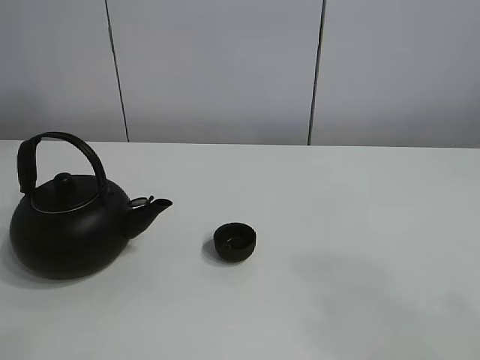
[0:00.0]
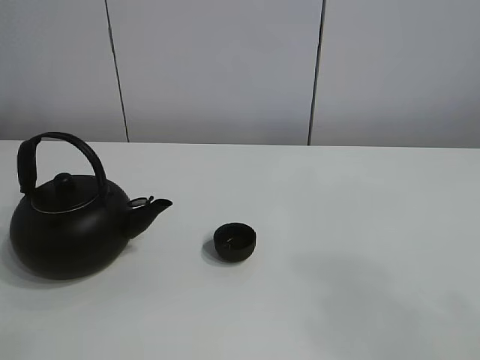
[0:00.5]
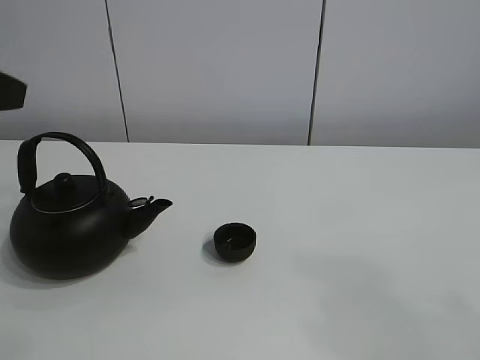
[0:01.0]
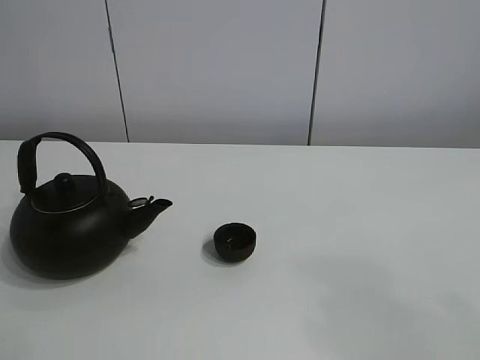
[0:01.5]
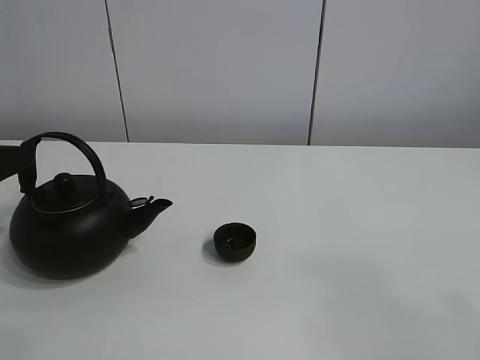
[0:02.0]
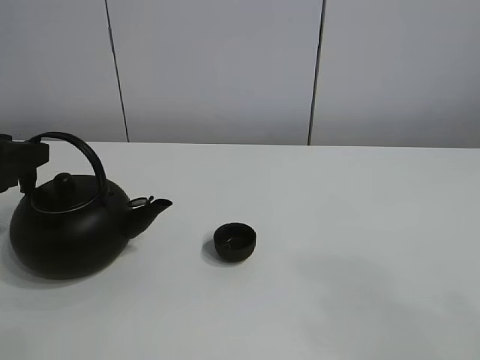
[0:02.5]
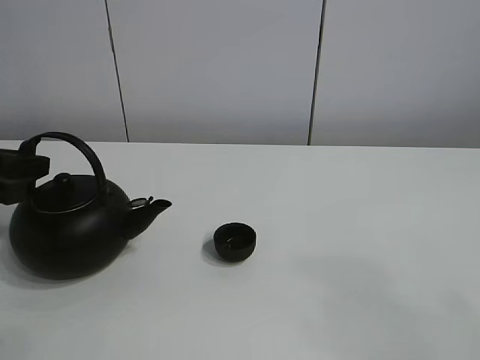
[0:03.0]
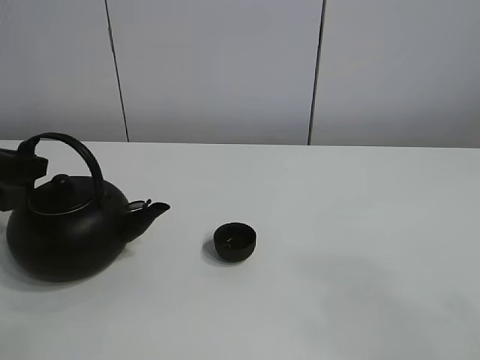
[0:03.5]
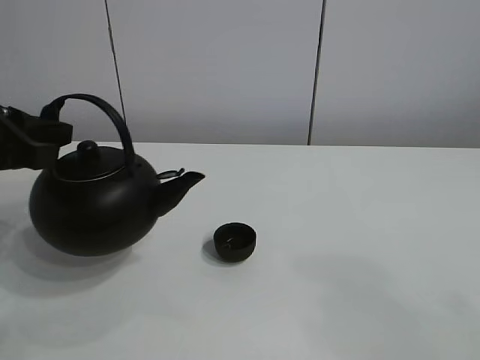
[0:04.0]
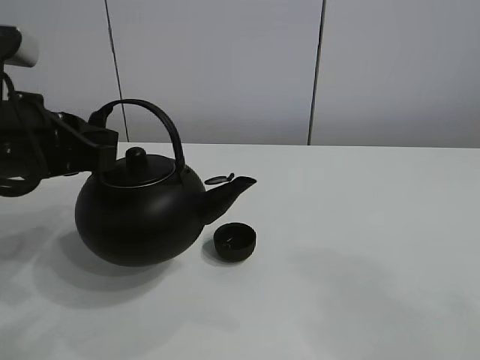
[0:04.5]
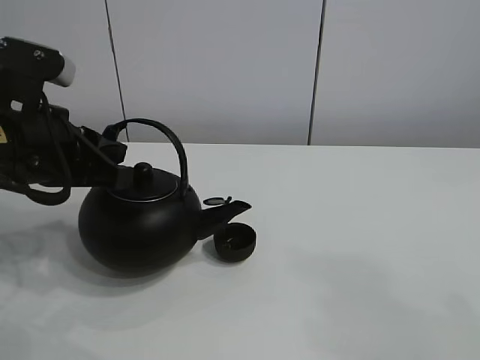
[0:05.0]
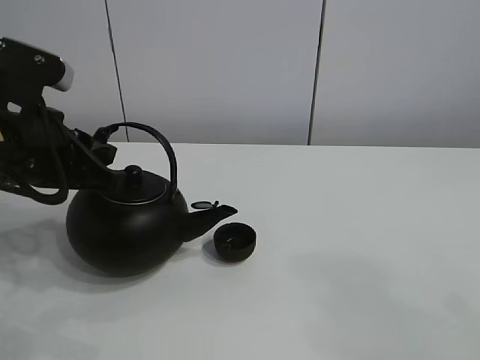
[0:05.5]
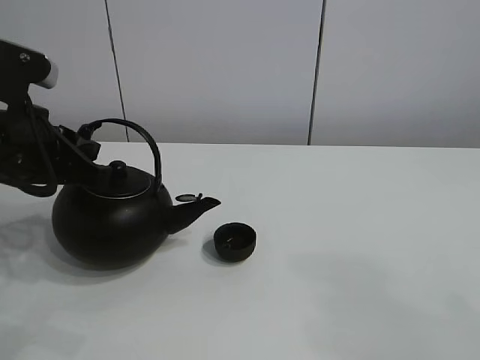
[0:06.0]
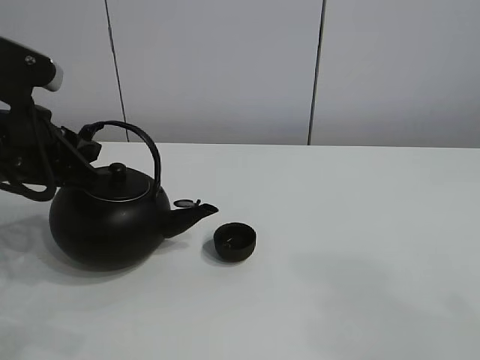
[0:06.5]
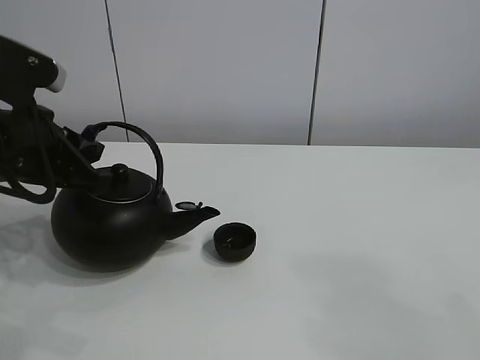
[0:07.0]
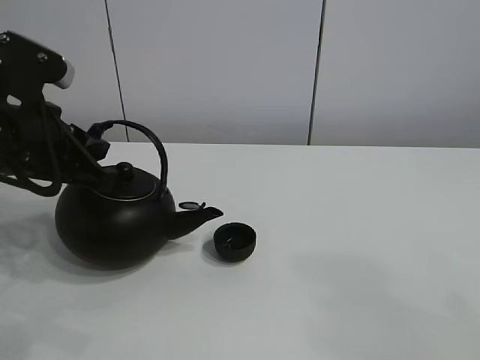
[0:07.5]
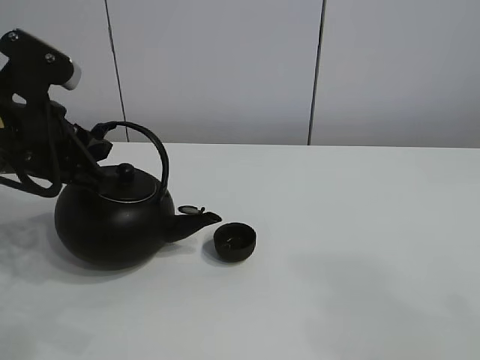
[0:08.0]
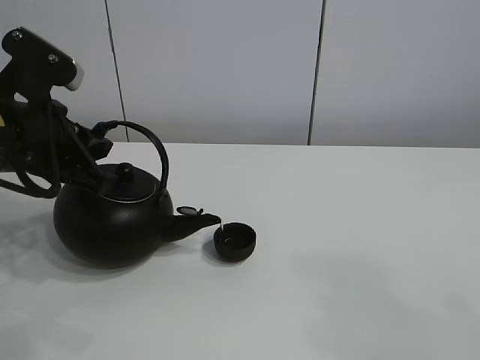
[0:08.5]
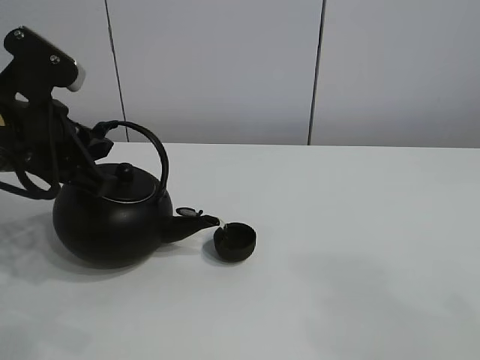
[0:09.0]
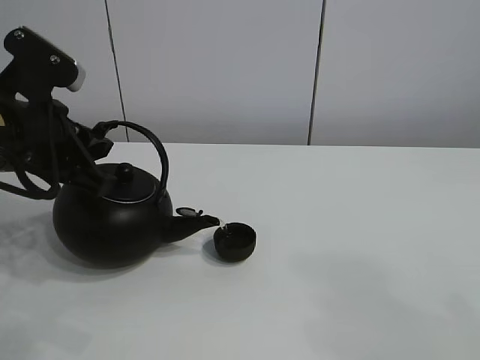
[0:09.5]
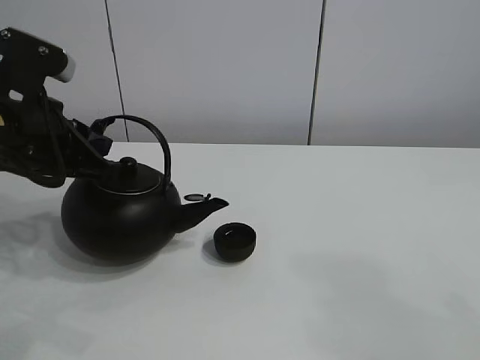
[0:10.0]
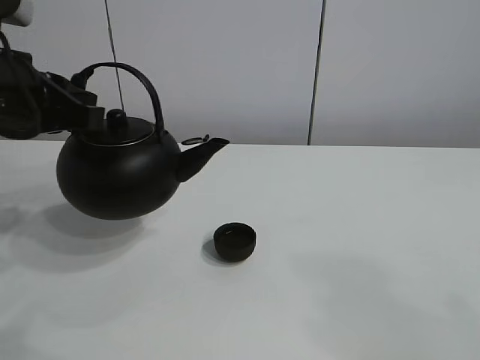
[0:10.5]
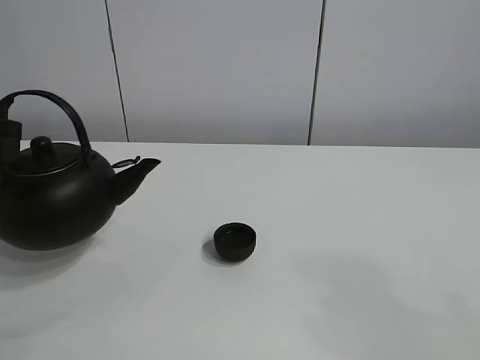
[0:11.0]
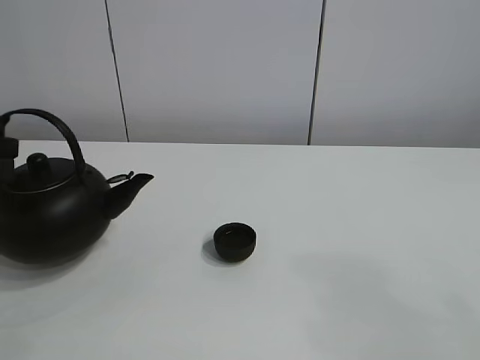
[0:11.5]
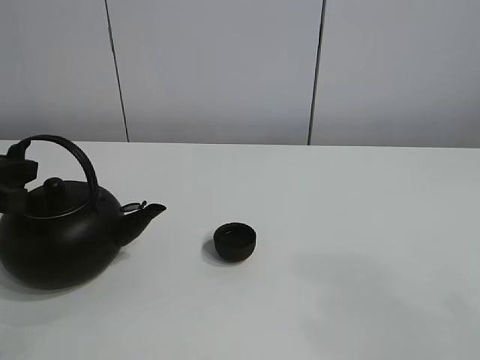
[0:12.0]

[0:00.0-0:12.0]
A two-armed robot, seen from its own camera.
Task of the whole recording: pour tea into the teacup.
Step, 0:00.0 to 0:03.5: Pick up the teapot with the left gripper.
Step, 0:04.0 to 0:09.5: Pour tea into the teacup with the left gripper.
0:02.0 to 0:04.0: The left gripper travels to the right by approximately 5 cm, and closes.
0:04.0 to 0:08.0: The grippers move only a little.
0:08.0 to 0:10.0: The grippers stay close to where they were, moving slightly.
0:10.0 to 0:12.0: The left gripper goes about 10 cm to the left.

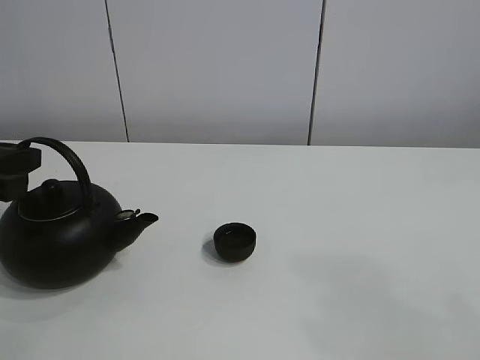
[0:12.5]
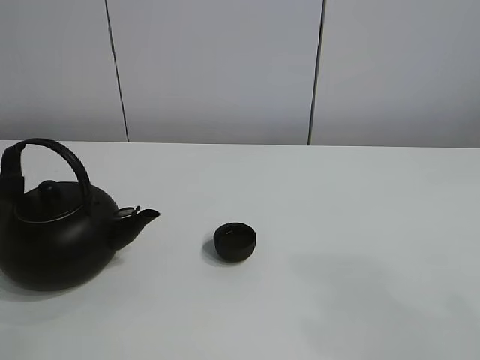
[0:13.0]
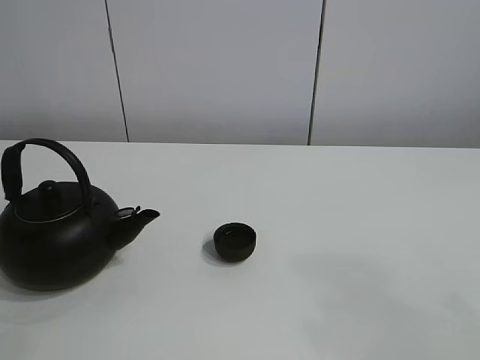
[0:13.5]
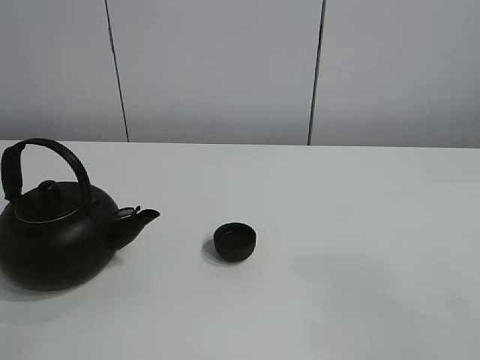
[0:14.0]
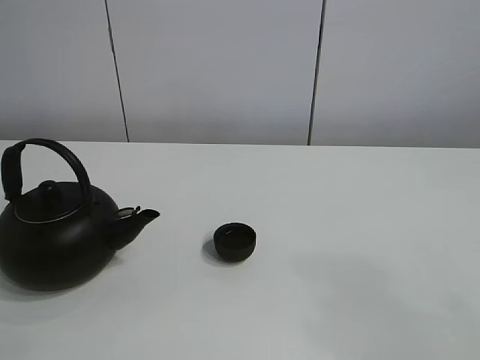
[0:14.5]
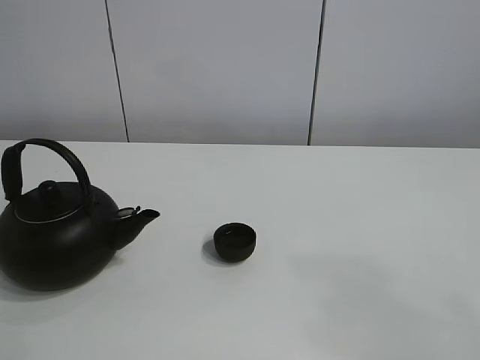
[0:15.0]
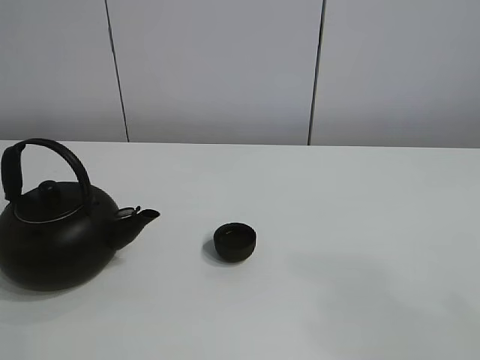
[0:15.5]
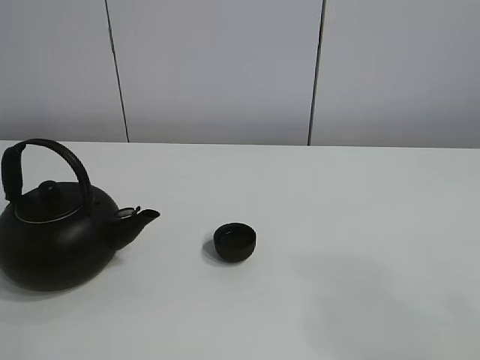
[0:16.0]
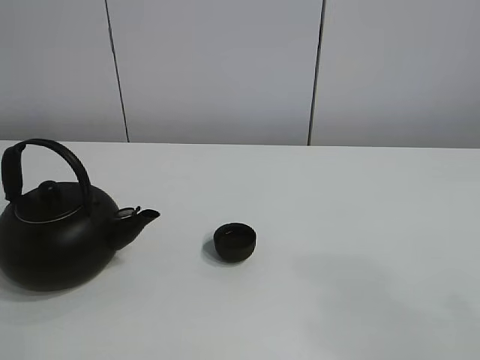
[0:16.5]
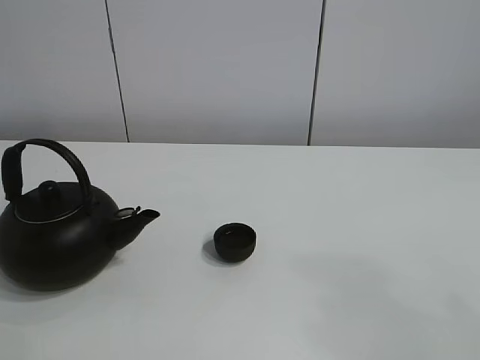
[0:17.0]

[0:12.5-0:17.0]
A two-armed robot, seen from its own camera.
Task of the whole recording: pour tea into the teacup.
0:12.5 to 0:14.5: The left gripper is displaced upward by roughly 15 cm.

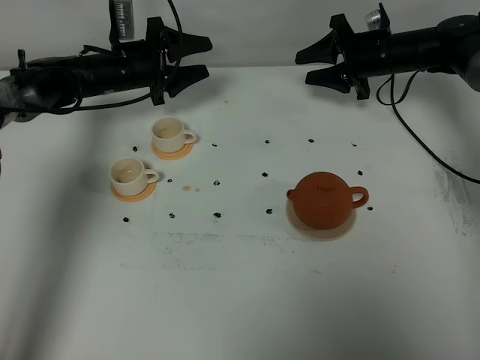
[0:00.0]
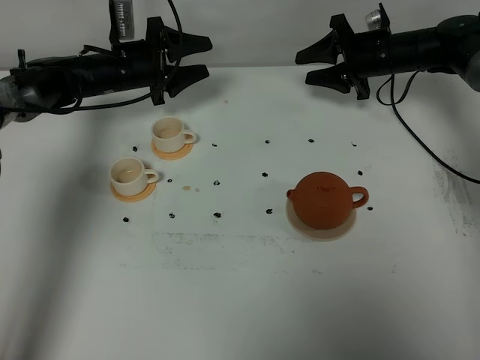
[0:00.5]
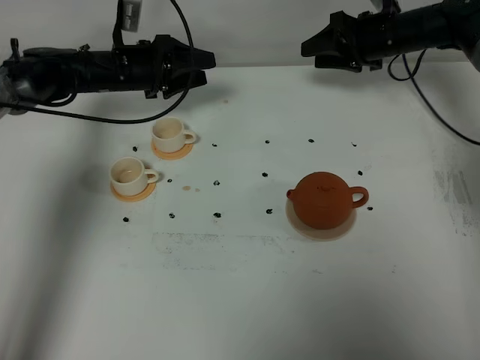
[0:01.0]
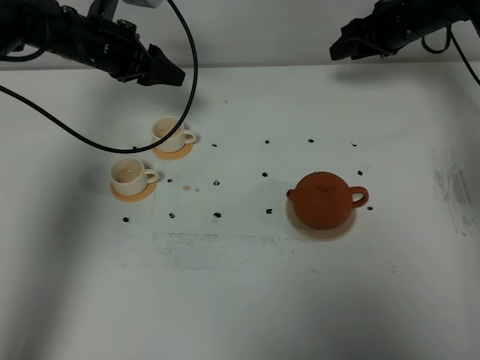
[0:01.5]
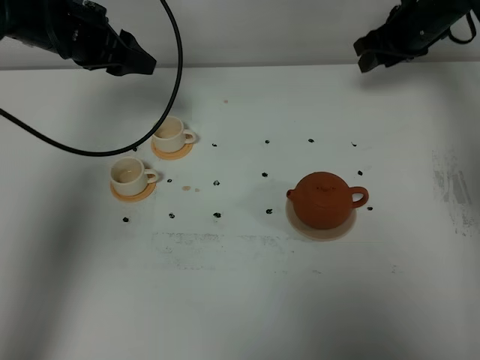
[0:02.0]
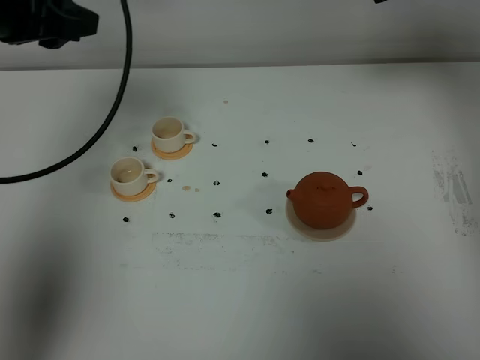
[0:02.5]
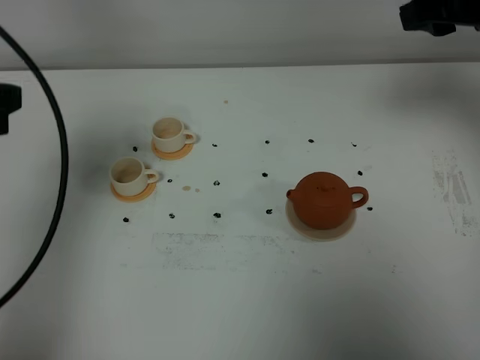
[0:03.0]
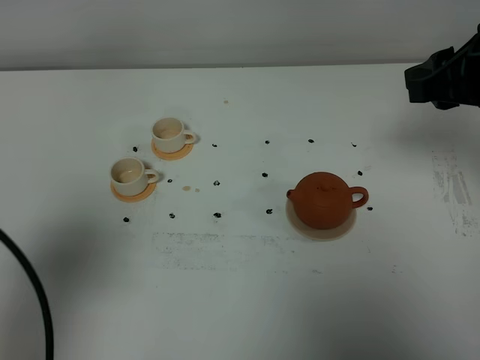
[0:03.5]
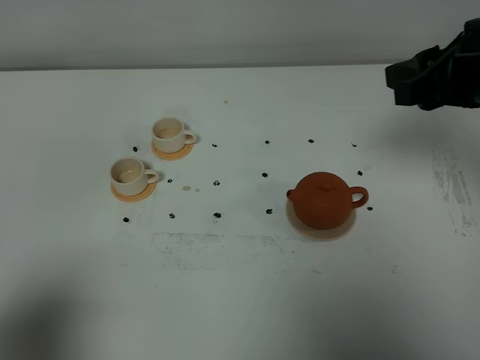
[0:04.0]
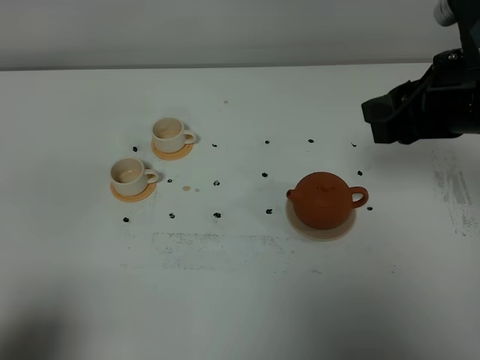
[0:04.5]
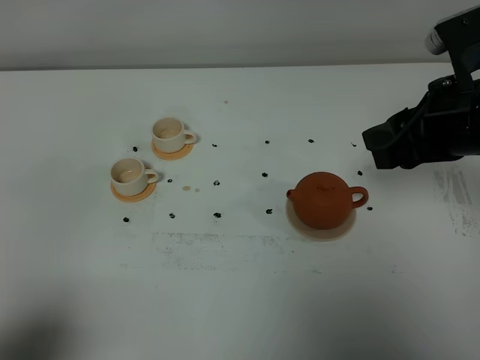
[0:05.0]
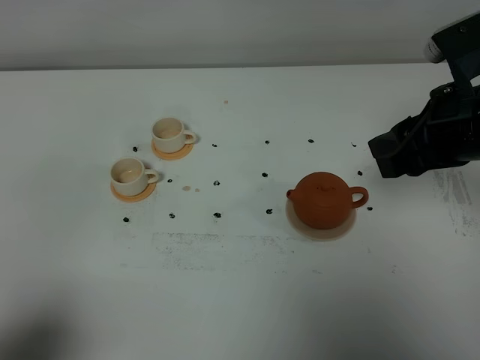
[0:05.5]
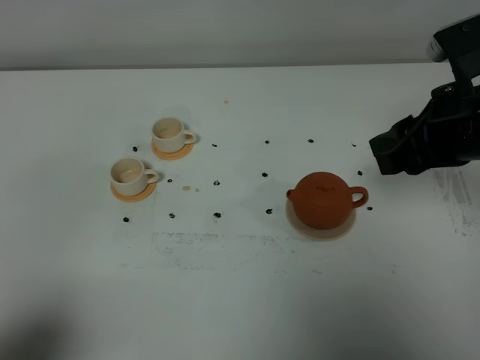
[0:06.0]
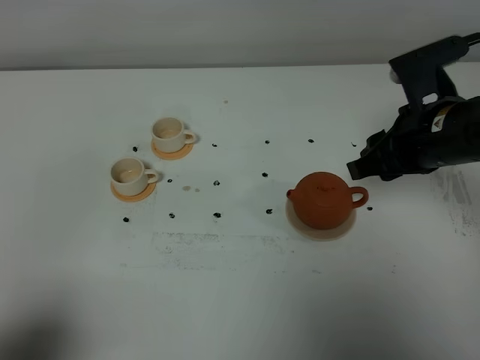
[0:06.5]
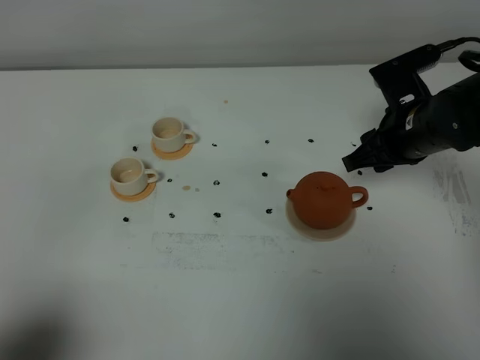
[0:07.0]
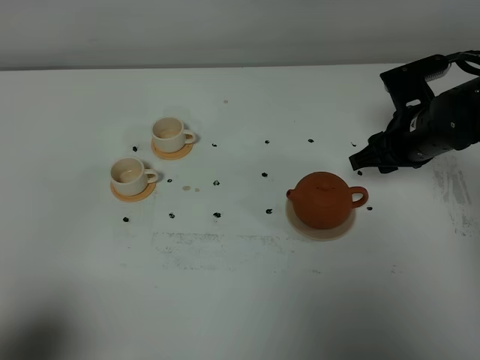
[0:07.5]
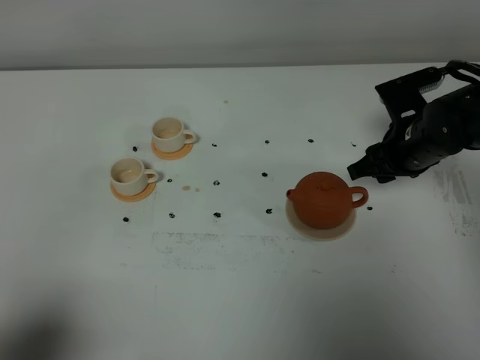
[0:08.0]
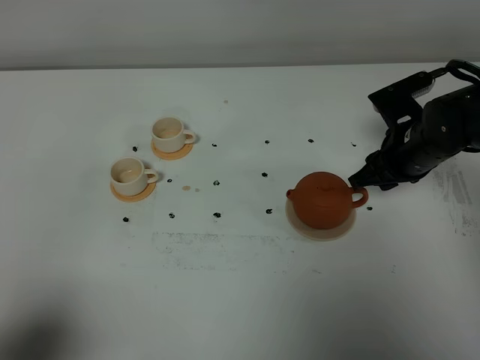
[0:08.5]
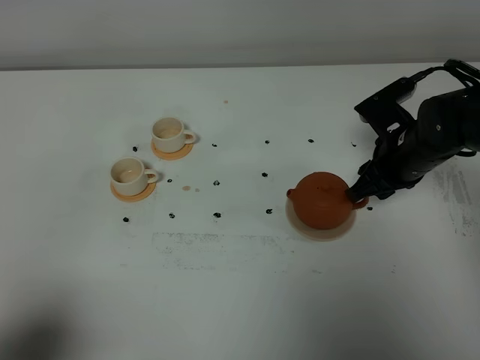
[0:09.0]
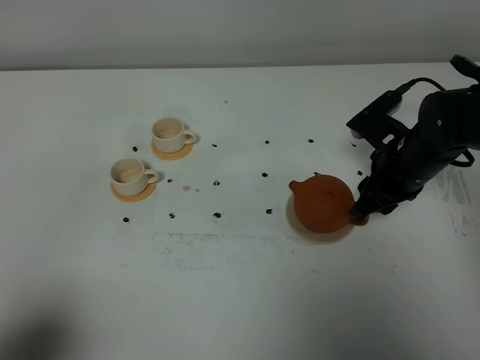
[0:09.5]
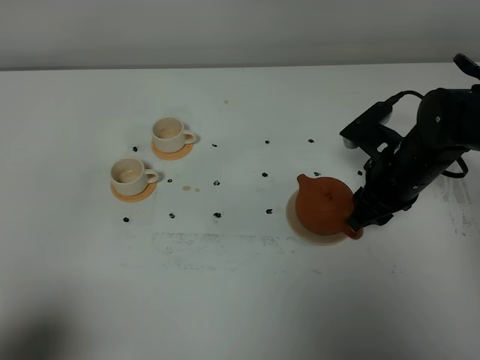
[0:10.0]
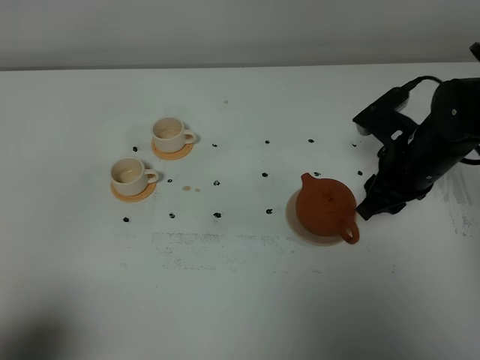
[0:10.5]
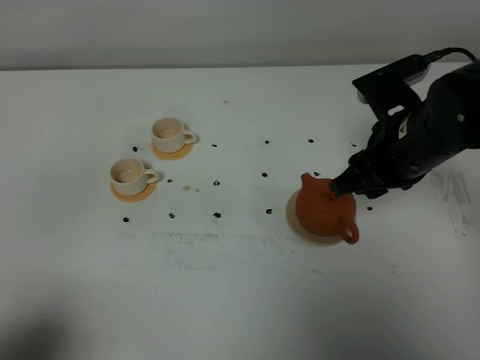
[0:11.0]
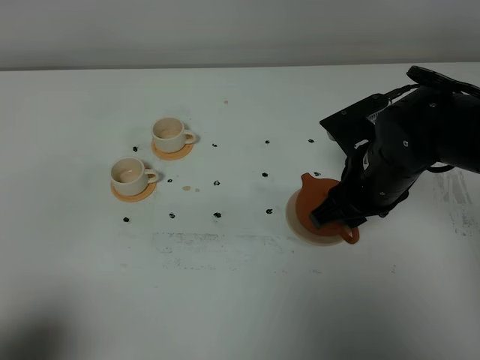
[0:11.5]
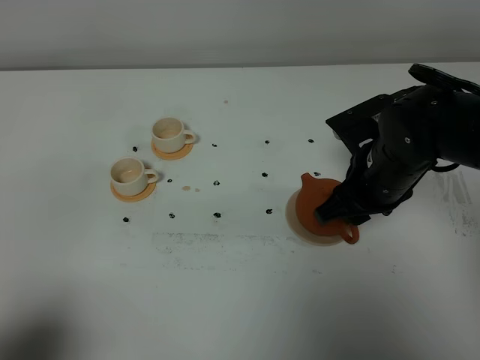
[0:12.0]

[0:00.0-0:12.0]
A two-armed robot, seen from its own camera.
Task of the whole recording: grasp the brown teapot and pour the tea into the two white teacups one by one, put the brown teapot back in its original place.
0:00.0 to 0:02.0: The left gripper moves upward and backward, some 15 cm, and closes, while the right gripper is displaced upward by roughly 10 cm.
0:02.0 to 0:04.0: The left gripper travels backward by approximately 40 cm, and closes up, while the right gripper is displaced backward and upward by roughly 30 cm.
0:04.0 to 0:06.0: The grippers move only a little.
0:06.0 to 0:08.0: The right gripper is displaced downward and forward by roughly 20 cm.
